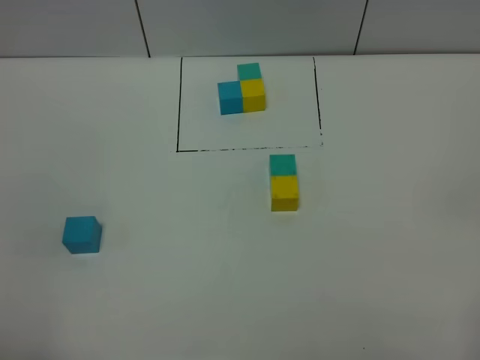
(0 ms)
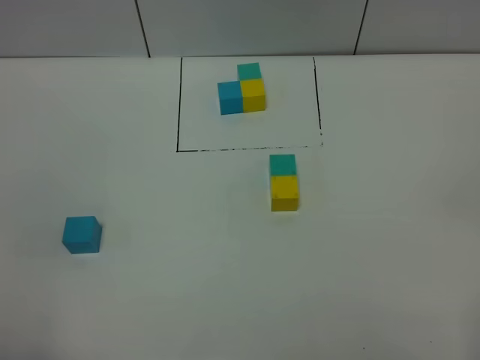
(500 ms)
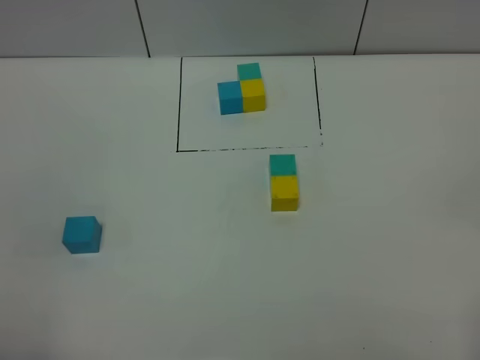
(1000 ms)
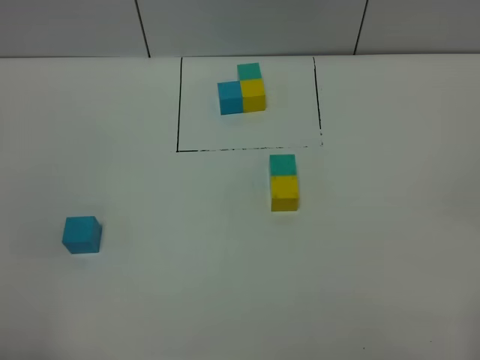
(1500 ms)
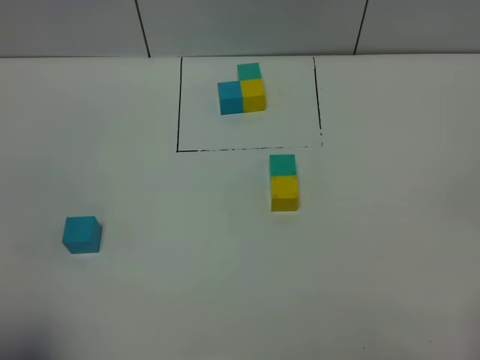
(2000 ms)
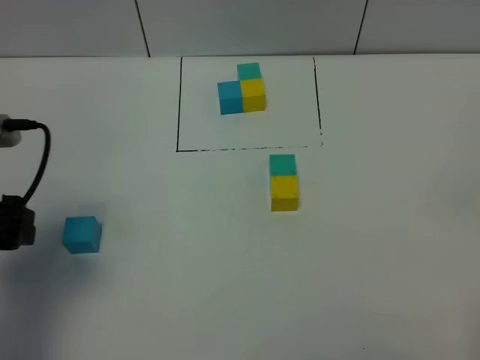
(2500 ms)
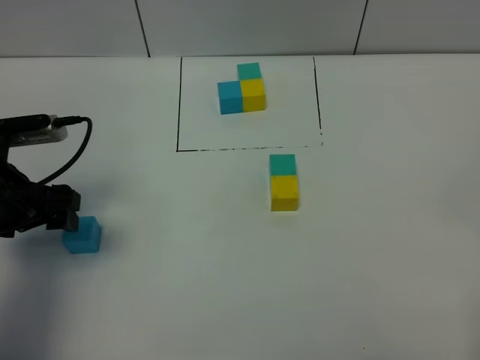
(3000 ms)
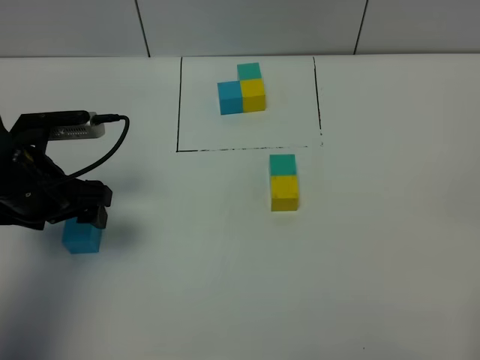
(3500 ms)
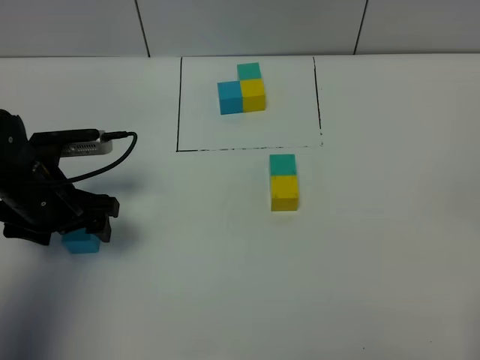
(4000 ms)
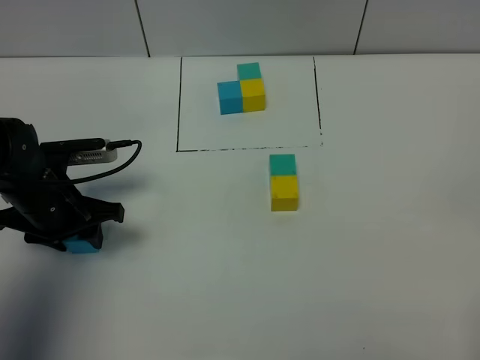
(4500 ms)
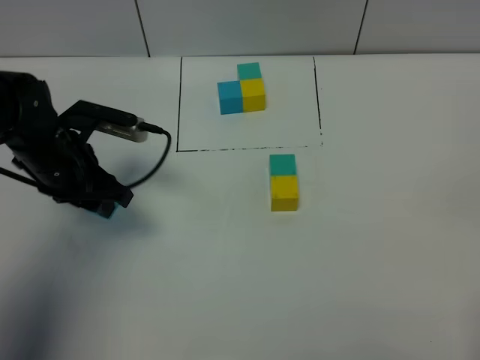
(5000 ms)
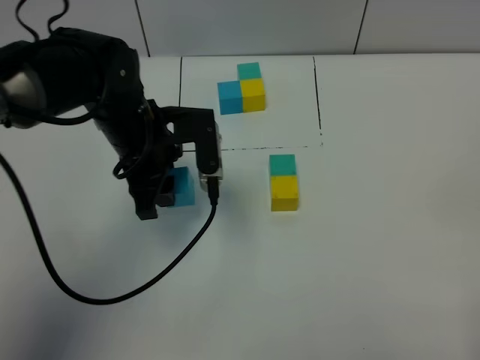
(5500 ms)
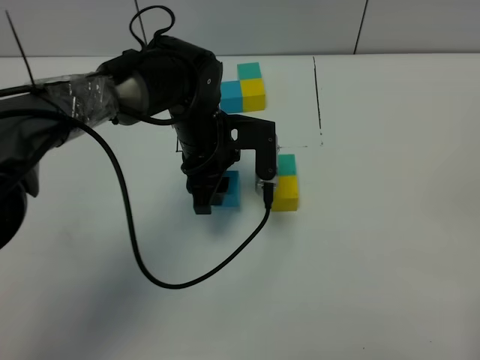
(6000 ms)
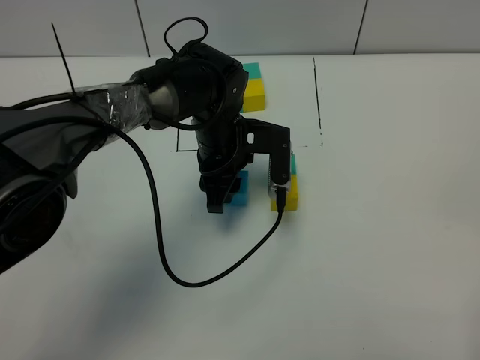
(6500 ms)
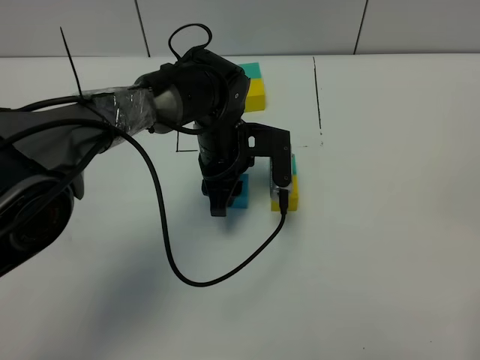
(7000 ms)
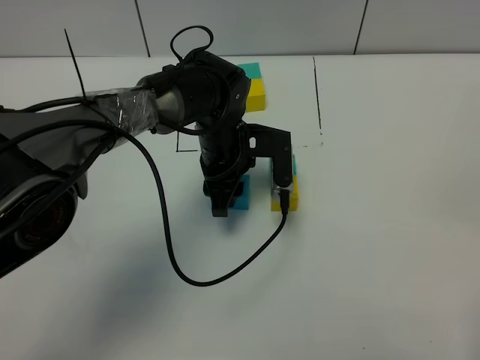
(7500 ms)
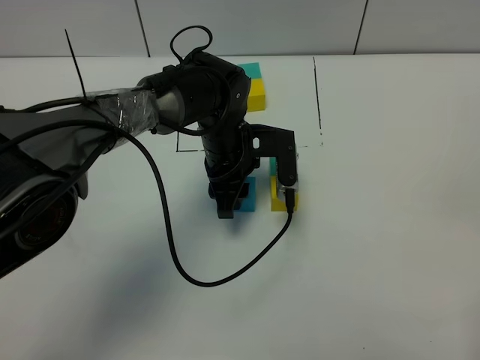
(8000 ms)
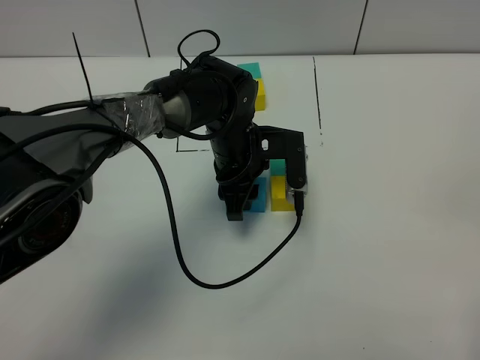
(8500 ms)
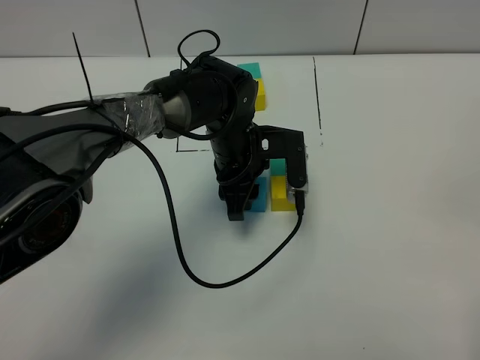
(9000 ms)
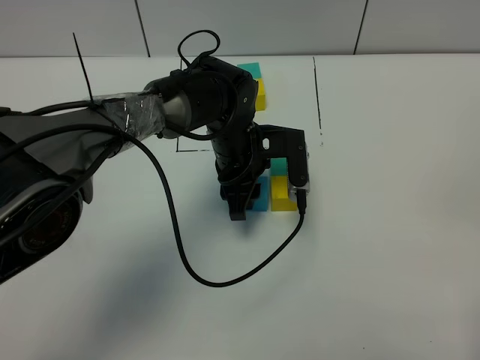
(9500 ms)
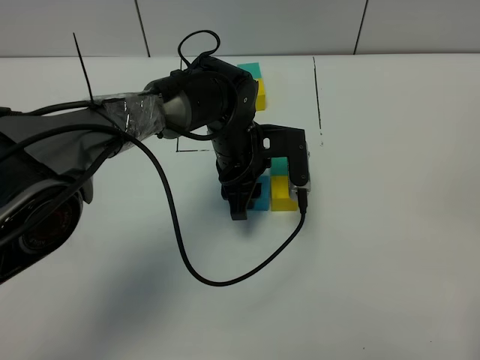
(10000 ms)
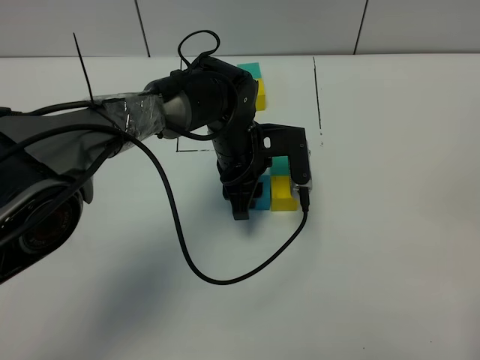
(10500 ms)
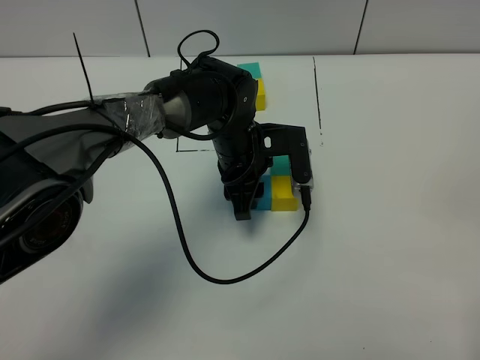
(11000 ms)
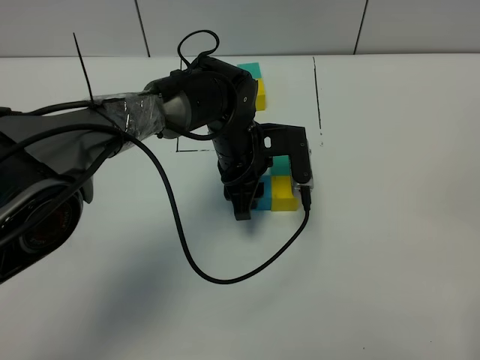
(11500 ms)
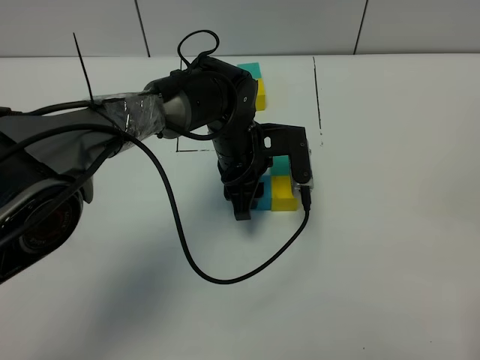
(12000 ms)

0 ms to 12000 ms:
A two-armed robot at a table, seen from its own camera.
Task of the whole recording: According to the building block template in front, assemble the scattered blocks together.
2000 ms to 4000 ms: The left gripper travels forward and downward by some 30 cm.
4000 ms to 6000 ms: The left gripper moves to the right, roughly 20 cm, and closes up.
6000 ms to 8000 ms: The grippers move only a little.
8000 ms to 10000 ms: Both grippers stay put.
10000 ms to 12000 ms: Neither gripper changes place.

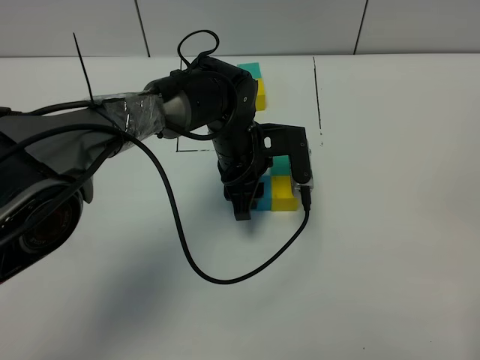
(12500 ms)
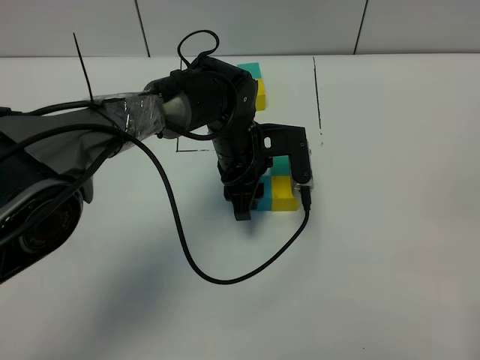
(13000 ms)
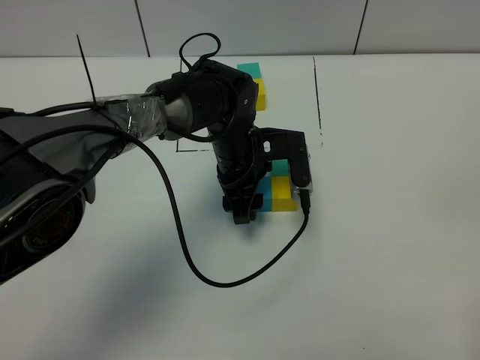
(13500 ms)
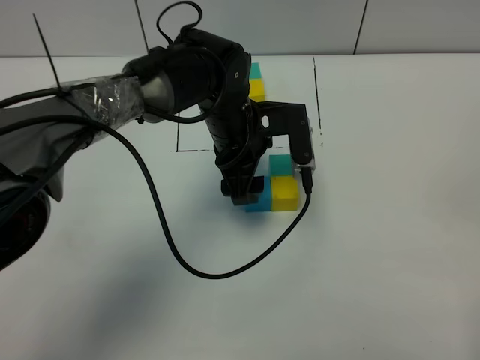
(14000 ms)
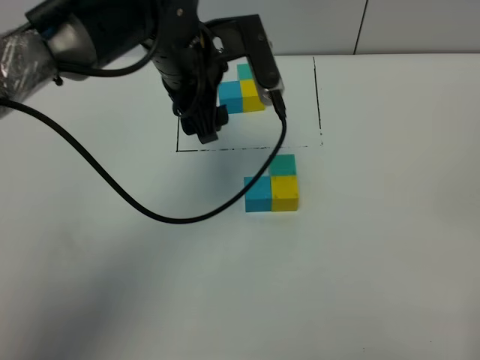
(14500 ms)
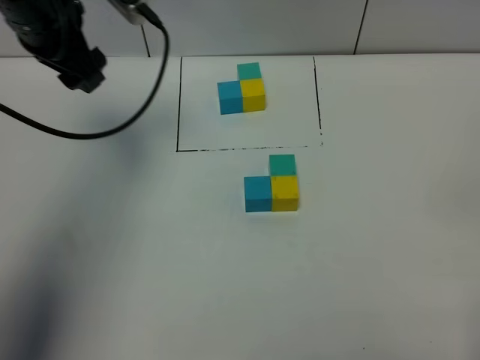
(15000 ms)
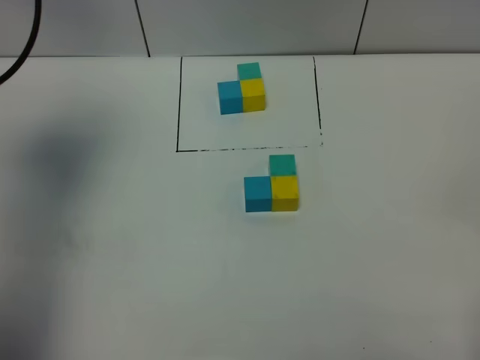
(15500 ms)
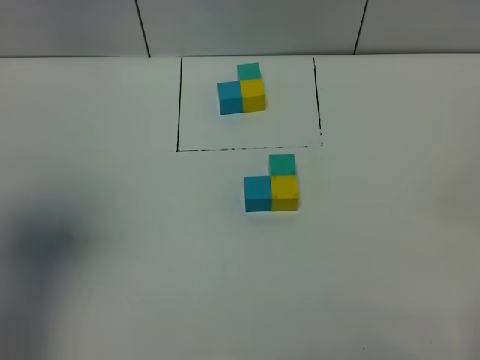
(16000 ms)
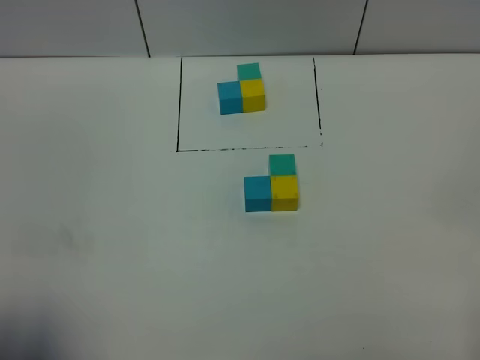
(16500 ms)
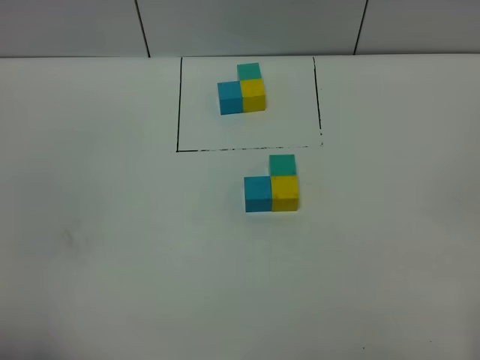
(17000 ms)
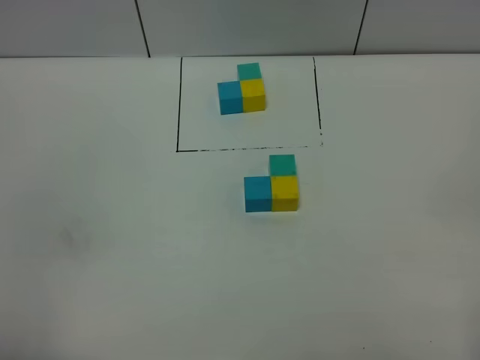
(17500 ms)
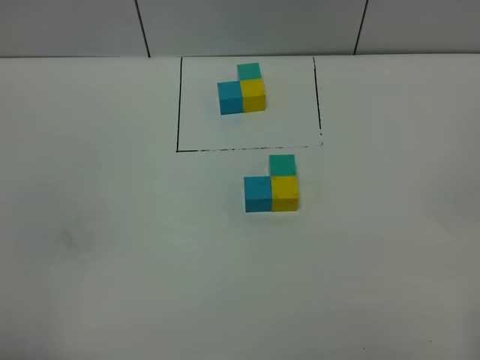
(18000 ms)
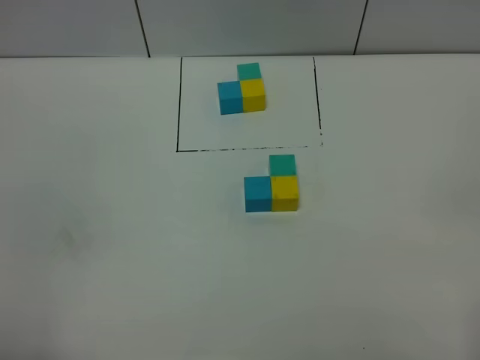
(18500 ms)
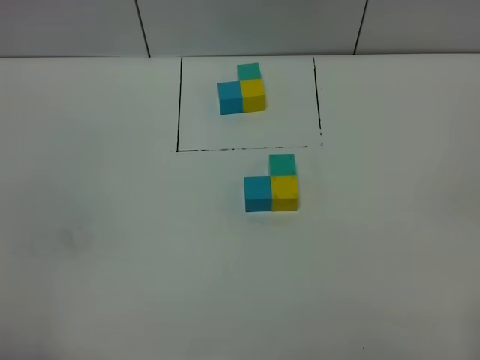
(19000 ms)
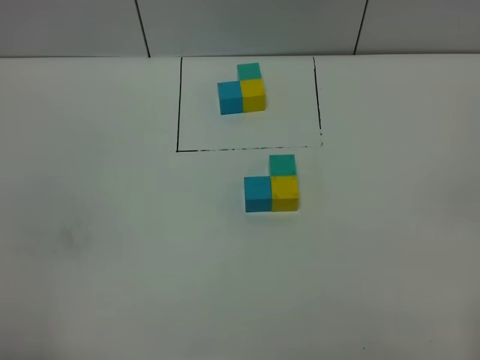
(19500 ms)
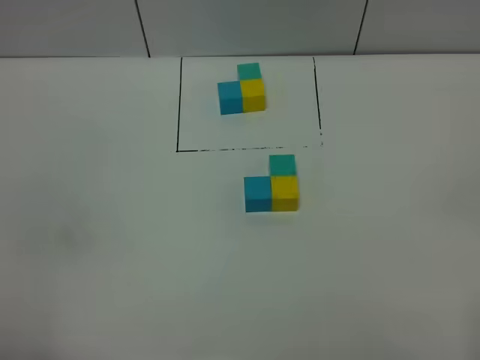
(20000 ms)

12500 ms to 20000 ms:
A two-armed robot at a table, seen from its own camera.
Task of the whole recording: According to the building block template in front, assemble the scattered blocks together.
12500 ms to 14500 ms: The left gripper is displaced upward and to the left by some 15 cm, and opens.
14500 ms to 16500 ms: The left gripper heads backward and to the left, covering roughly 40 cm.
16500 ms to 18000 ms: The left gripper heads downward, covering some 5 cm.
18000 ms to 20000 ms: The two grippers keep their place.
